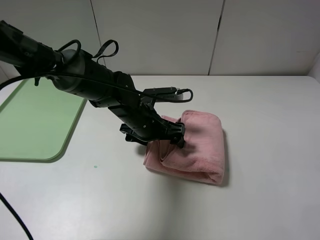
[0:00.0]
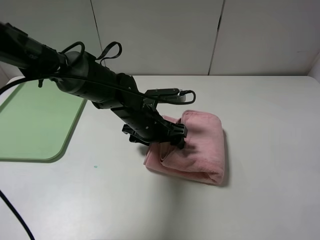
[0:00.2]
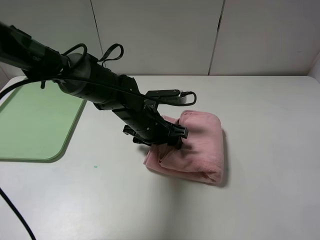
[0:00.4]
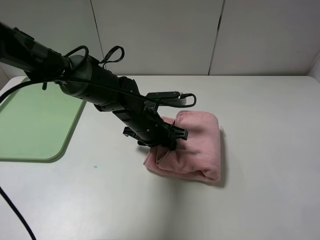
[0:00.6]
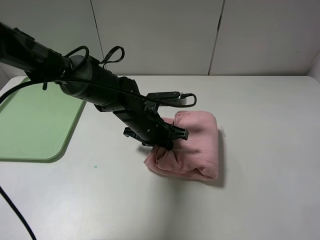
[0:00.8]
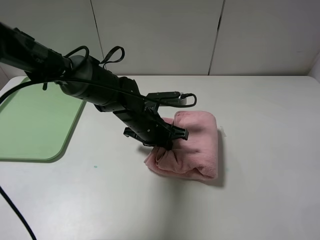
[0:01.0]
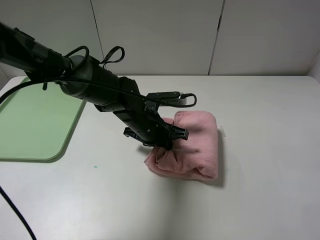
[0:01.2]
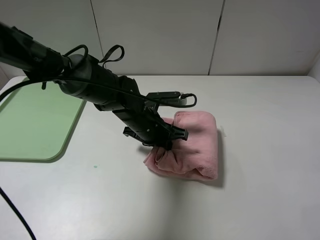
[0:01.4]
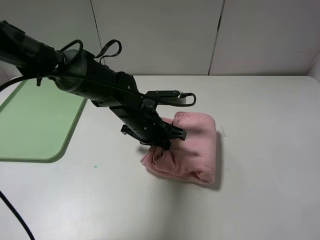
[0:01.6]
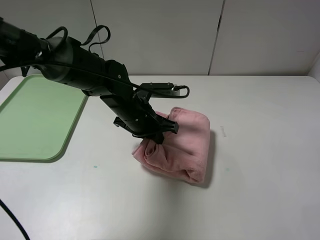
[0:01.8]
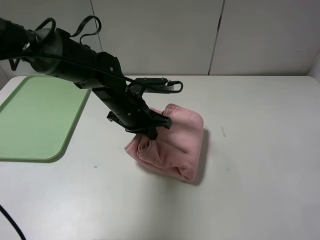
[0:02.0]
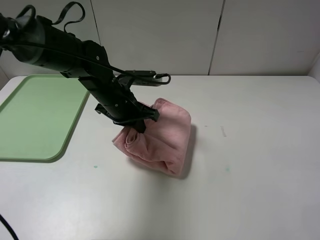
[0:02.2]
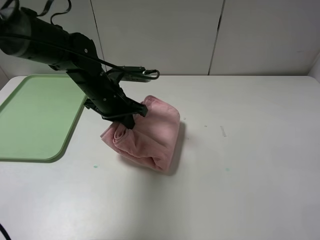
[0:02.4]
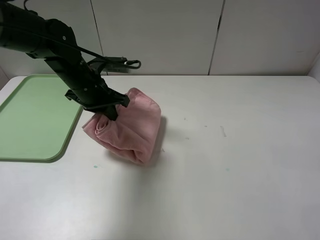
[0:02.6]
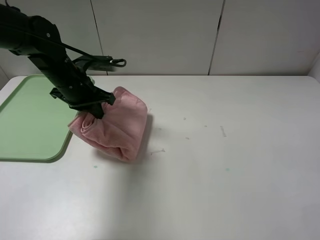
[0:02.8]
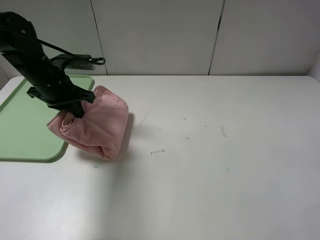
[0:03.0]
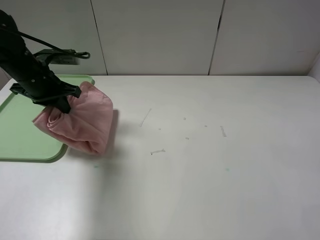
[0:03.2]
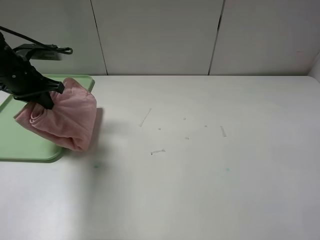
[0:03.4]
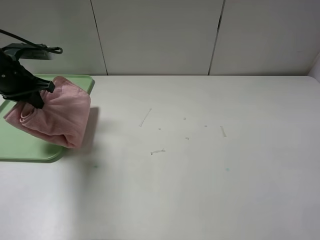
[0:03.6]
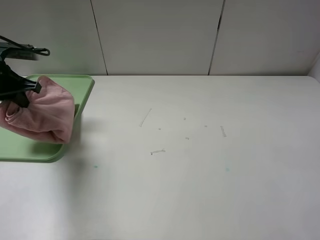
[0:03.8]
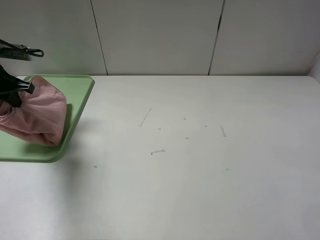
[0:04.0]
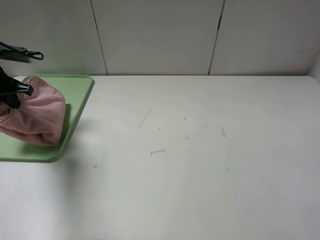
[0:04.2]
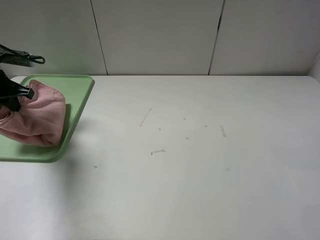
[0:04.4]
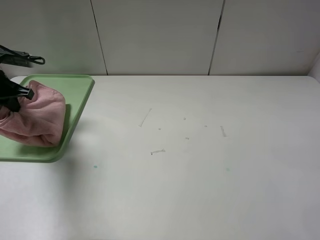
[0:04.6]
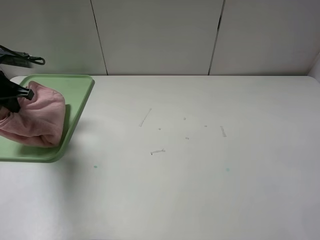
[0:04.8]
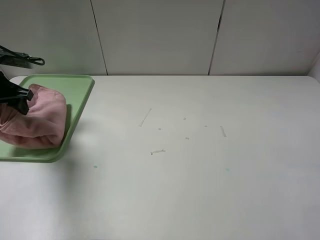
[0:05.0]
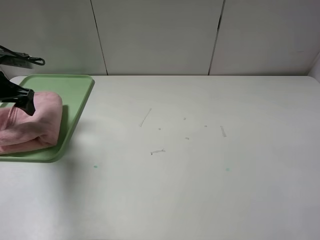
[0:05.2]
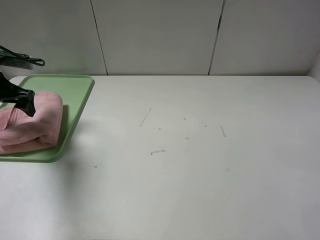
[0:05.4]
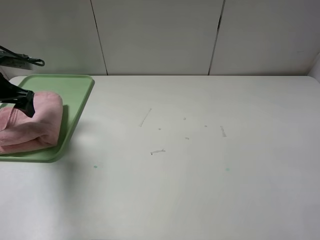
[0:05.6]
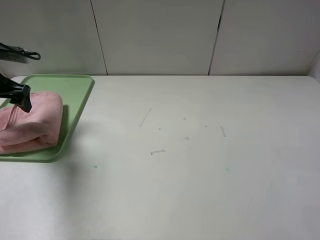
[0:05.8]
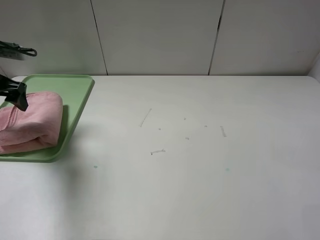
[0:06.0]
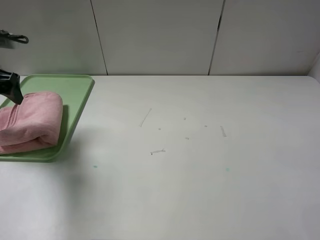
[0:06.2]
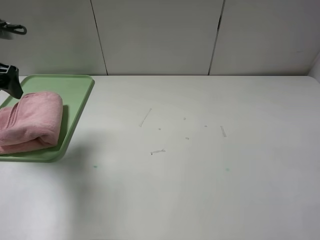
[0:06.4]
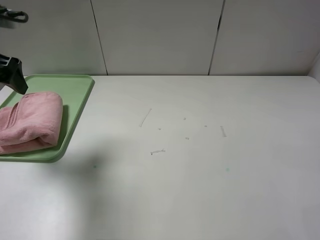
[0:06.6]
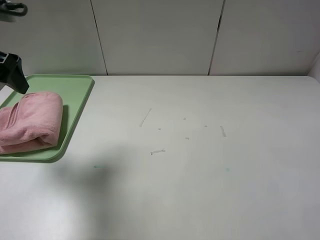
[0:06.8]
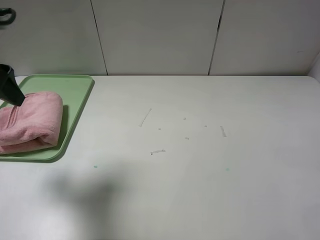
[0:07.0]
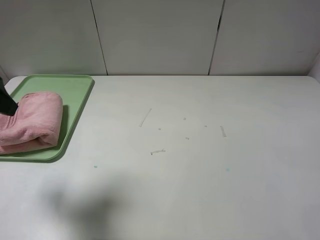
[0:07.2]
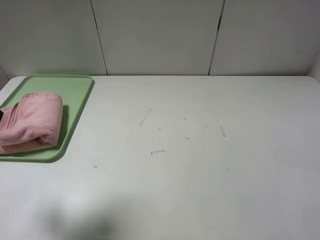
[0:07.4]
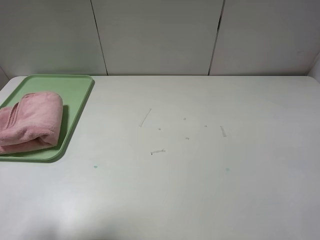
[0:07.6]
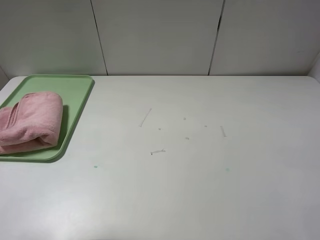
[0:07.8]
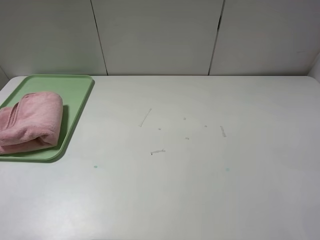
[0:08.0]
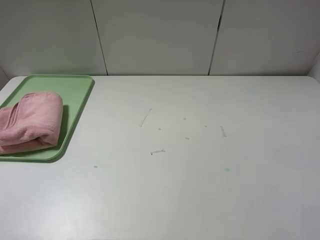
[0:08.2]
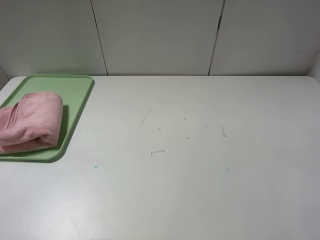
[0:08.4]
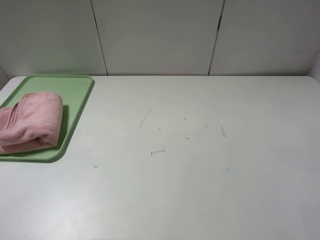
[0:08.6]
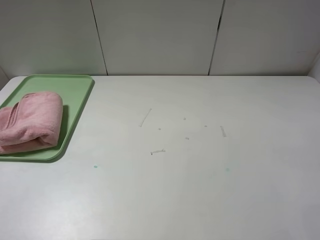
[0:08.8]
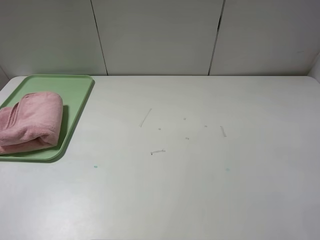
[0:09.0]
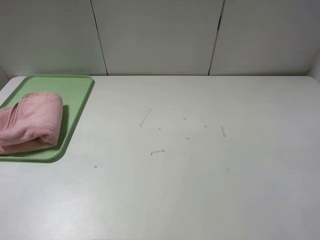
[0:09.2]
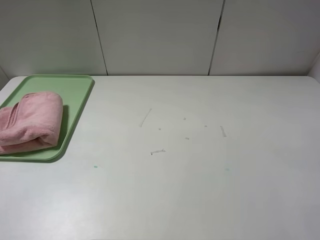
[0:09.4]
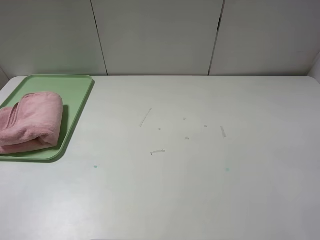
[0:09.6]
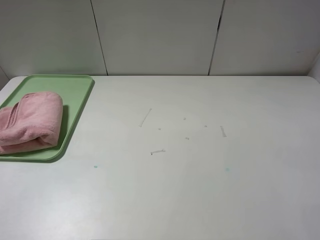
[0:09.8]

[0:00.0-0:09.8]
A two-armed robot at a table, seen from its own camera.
Step, 0:00.0 to 0:05.4: Place the folded pink towel on the tray with the left gripper.
0:00.0 to 0:01.4: The left gripper closes its fingers.
0:01.4 to 0:02.8: The left gripper moves to the left and upward, approximately 15 cm.
0:02.8 to 0:04.2: The left gripper travels to the left by some 20 cm.
0:04.2 to 0:05.6: The left gripper opens.
0:05.6 to 0:07.0: The left gripper heads backward, upward and to the right, covering roughly 20 cm.
0:07.0 to 0:08.4: The left gripper goes approximately 20 cm backward.
